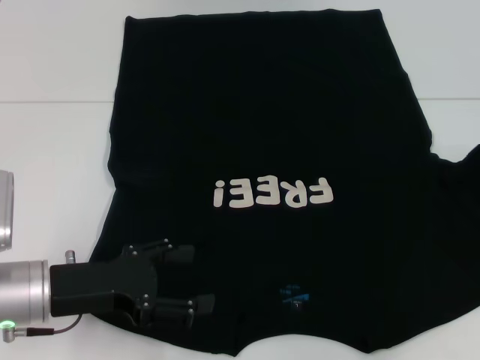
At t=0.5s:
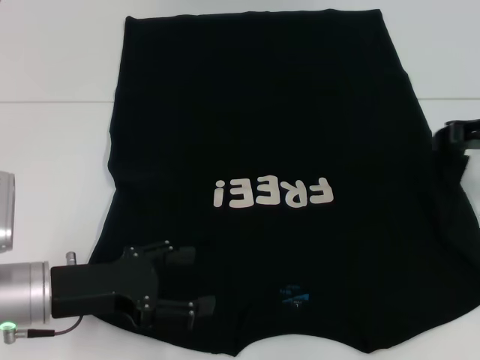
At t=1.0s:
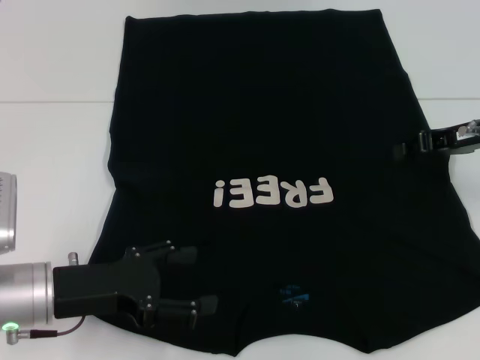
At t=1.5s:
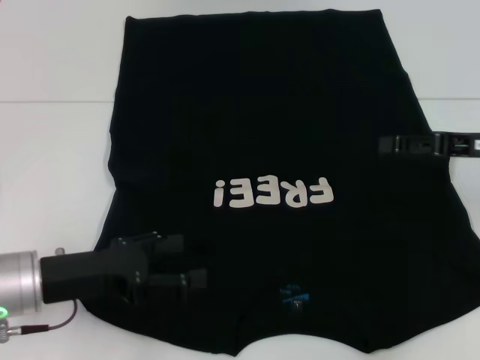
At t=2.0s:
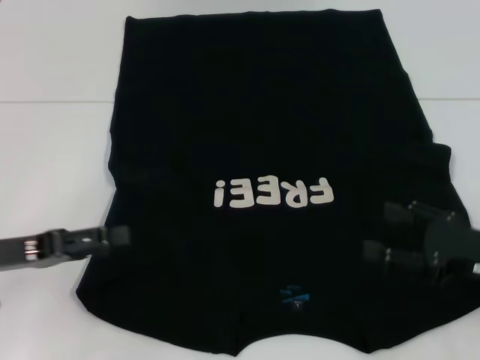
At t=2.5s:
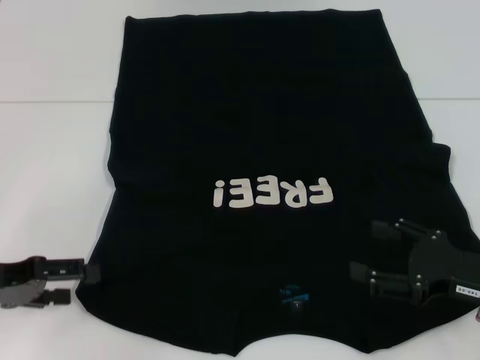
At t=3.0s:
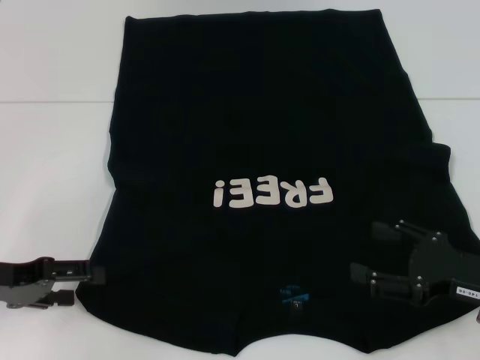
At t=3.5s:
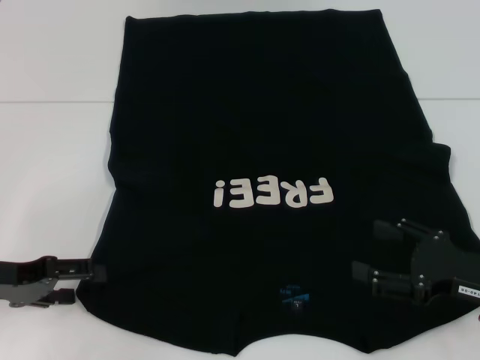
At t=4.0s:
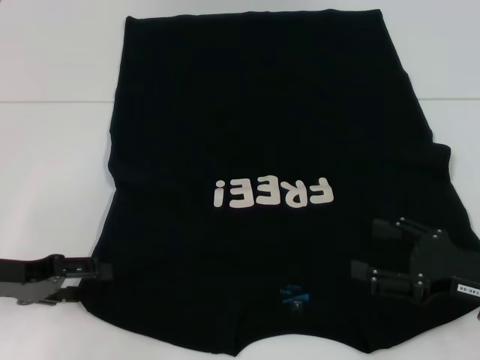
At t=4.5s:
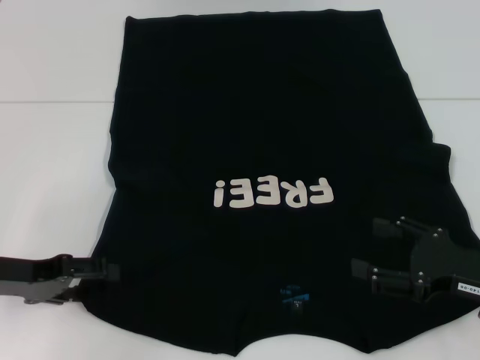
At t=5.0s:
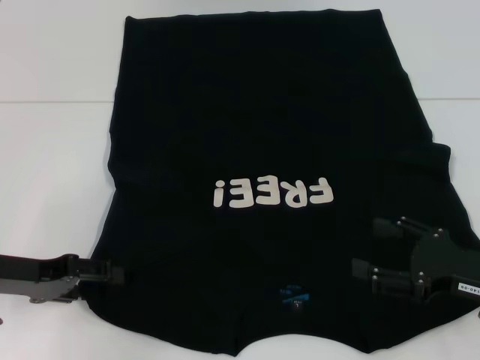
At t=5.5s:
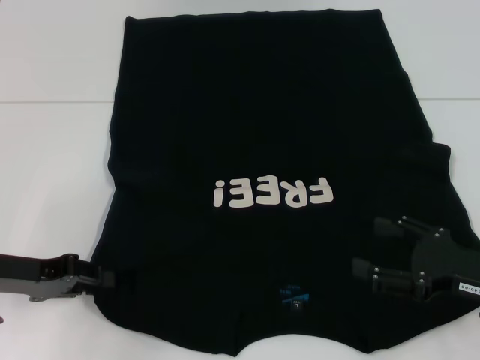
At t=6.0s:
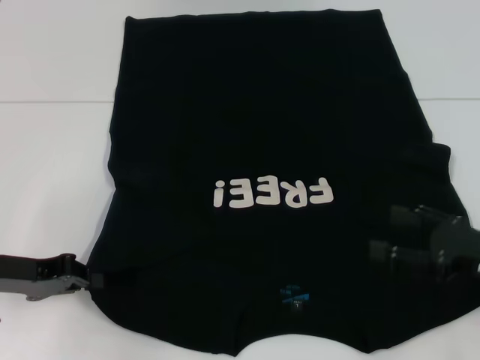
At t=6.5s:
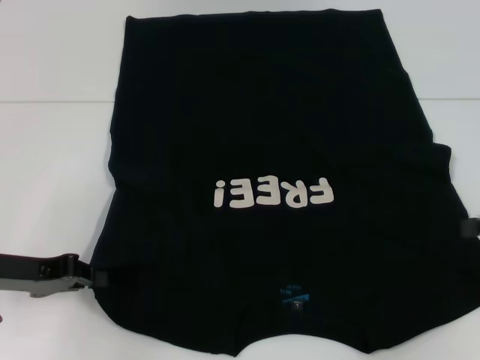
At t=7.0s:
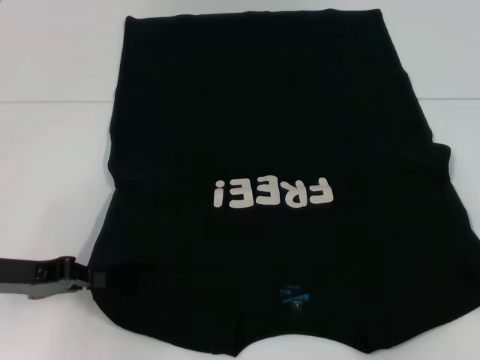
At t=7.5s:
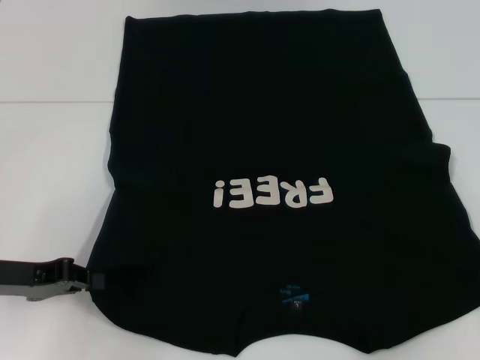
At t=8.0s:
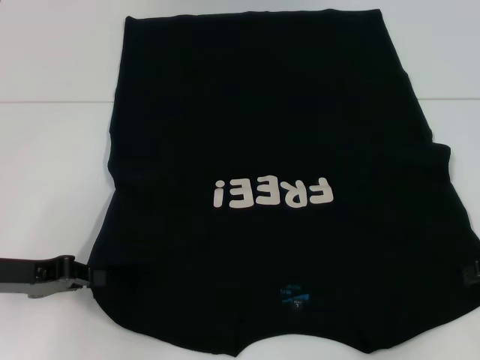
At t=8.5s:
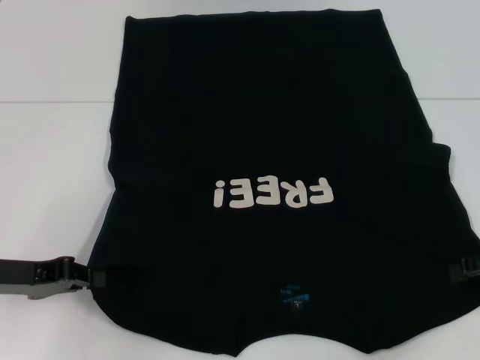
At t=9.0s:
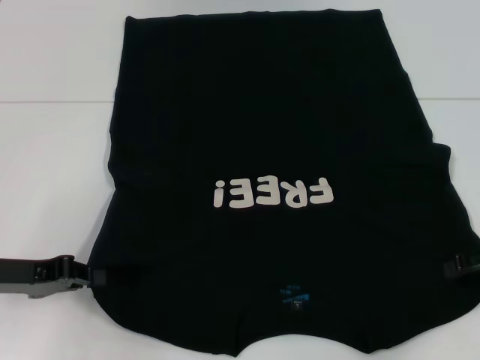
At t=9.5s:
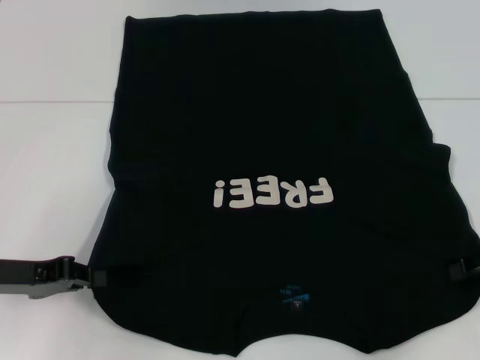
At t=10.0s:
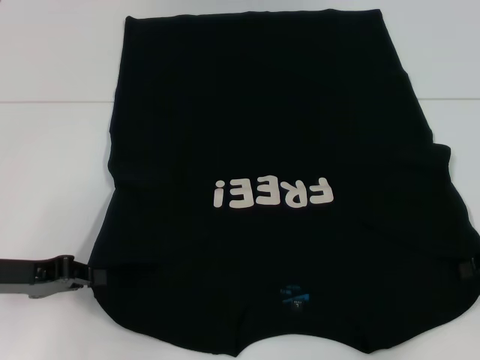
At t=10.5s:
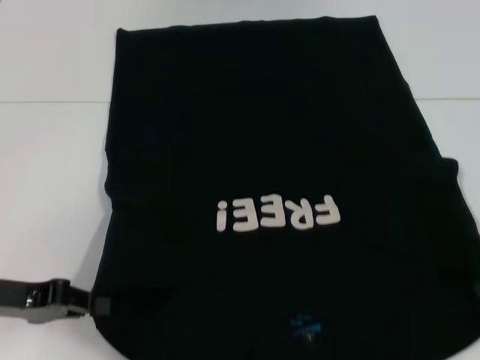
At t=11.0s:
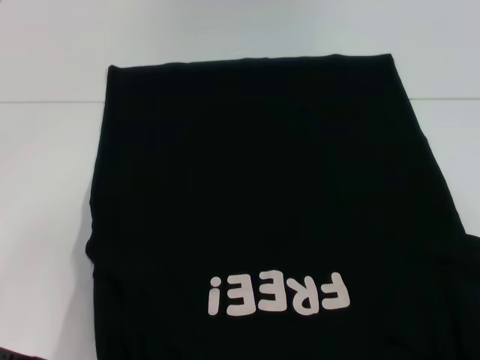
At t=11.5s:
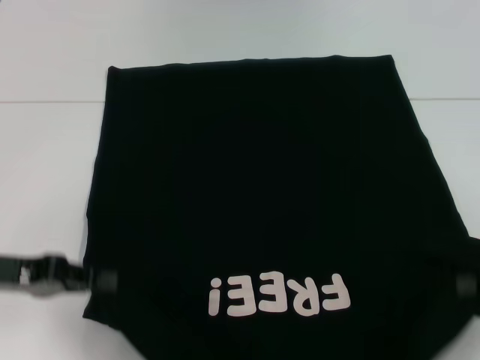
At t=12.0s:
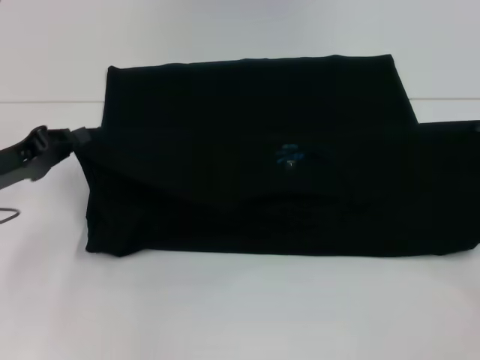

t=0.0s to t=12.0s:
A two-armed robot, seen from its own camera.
Step, t=1.5s to t=5.5s: Grab the bottom left corner with your left hand.
Step, t=6.0s to t=9.5s: Grab the bottom right corner with your right hand.
t=0.0s to t=2.0s: The right gripper shifts roughly 15 cm backward, downward and to the left, and opens up. Meanwhile the left gripper moves to the left, roughly 10 cm.
t=4.0s to t=6.0s: The left gripper closes.

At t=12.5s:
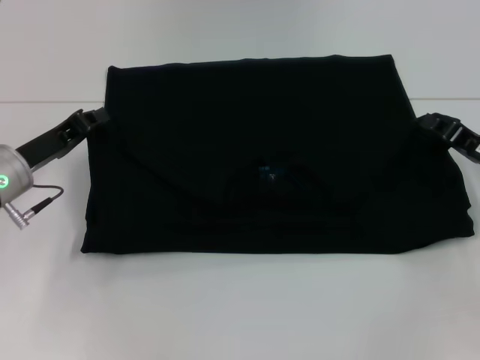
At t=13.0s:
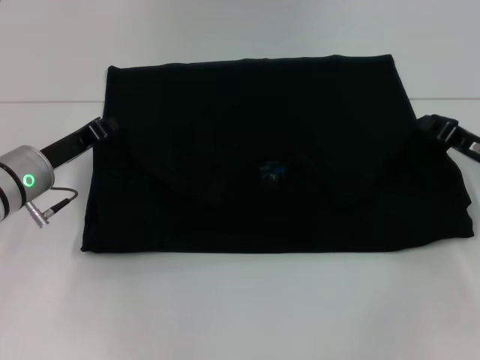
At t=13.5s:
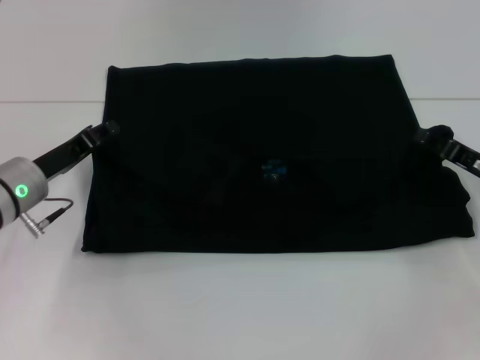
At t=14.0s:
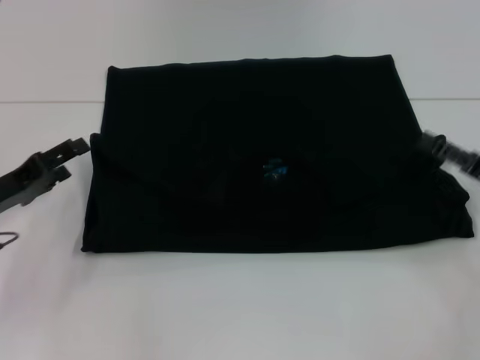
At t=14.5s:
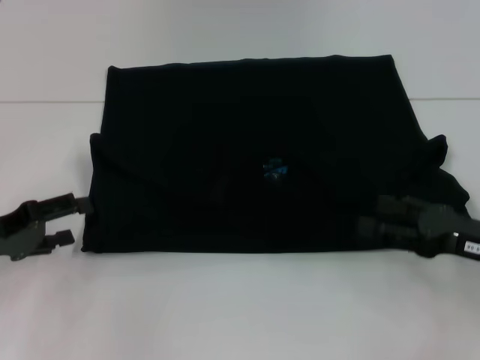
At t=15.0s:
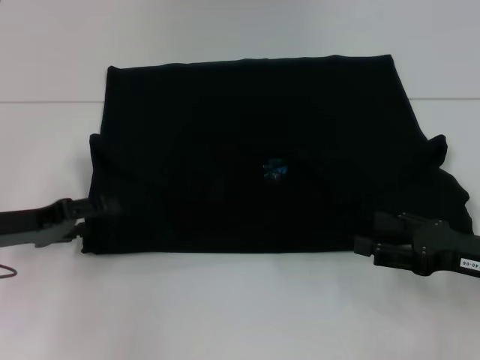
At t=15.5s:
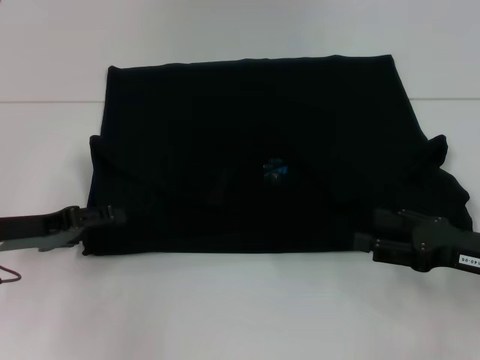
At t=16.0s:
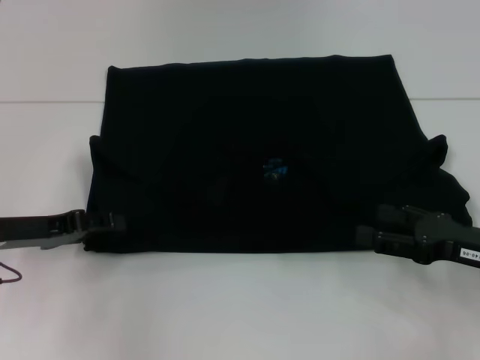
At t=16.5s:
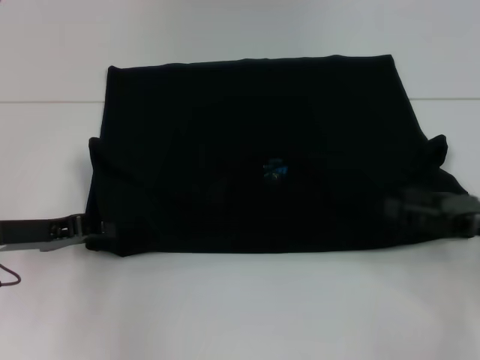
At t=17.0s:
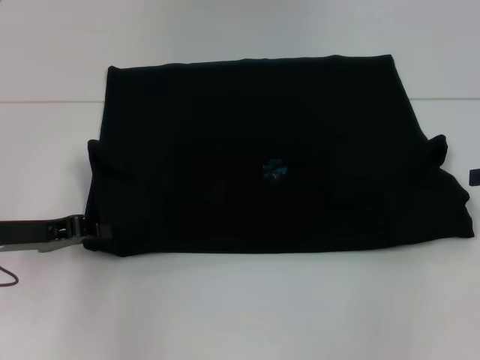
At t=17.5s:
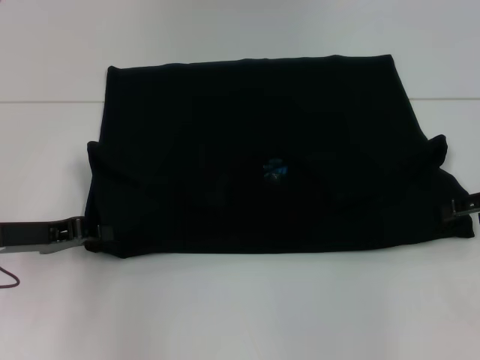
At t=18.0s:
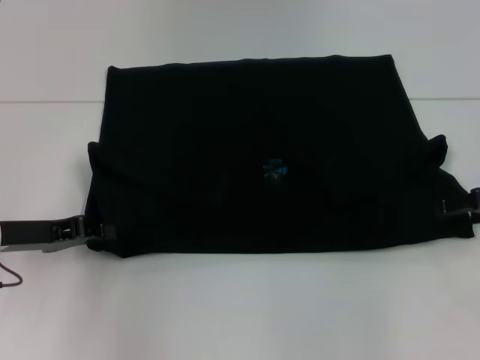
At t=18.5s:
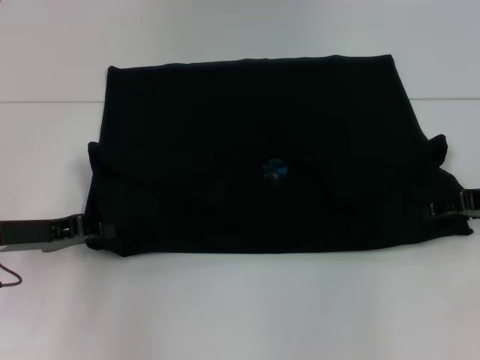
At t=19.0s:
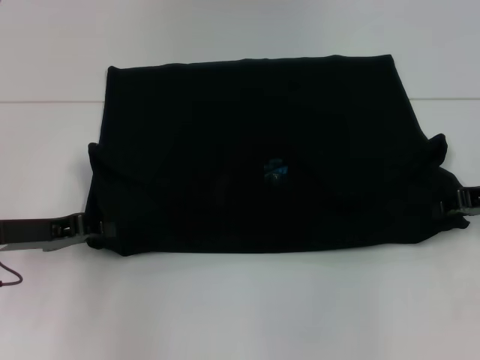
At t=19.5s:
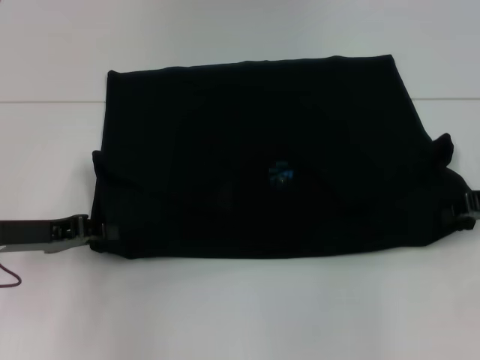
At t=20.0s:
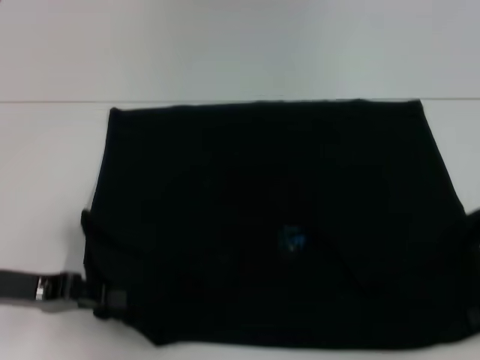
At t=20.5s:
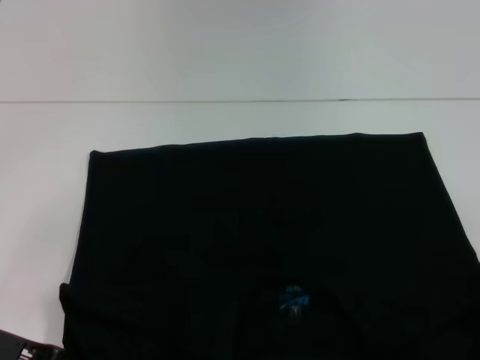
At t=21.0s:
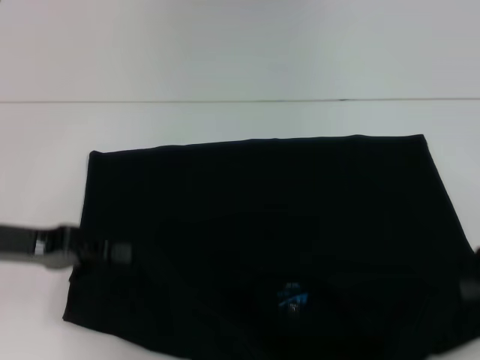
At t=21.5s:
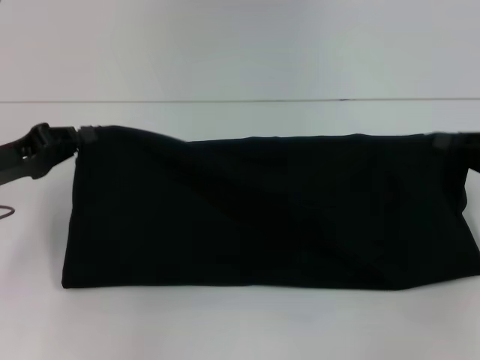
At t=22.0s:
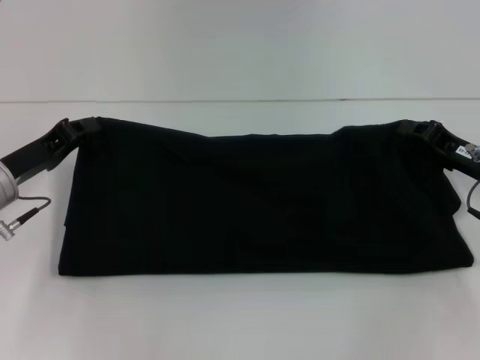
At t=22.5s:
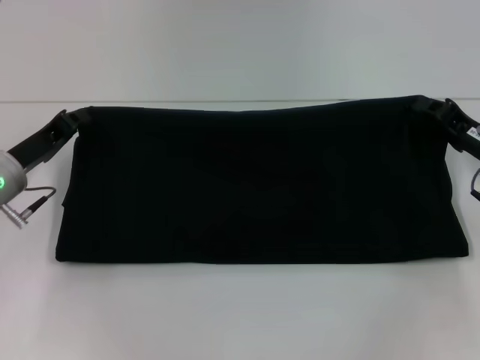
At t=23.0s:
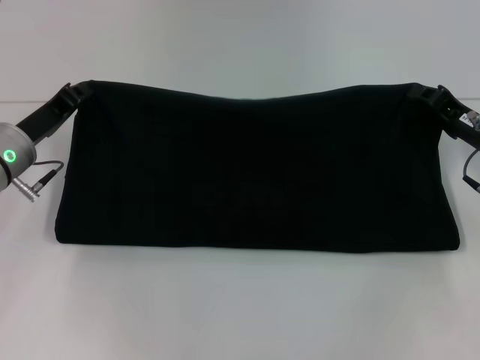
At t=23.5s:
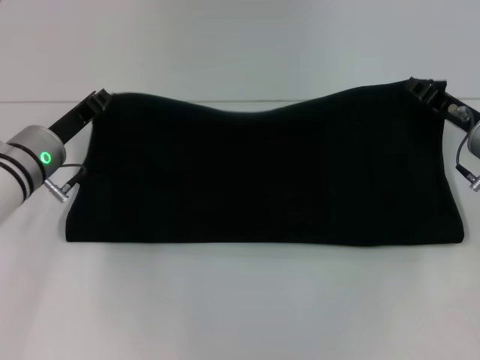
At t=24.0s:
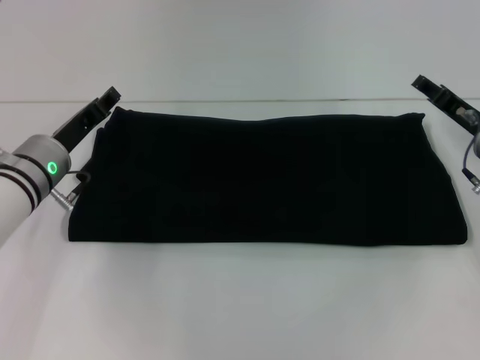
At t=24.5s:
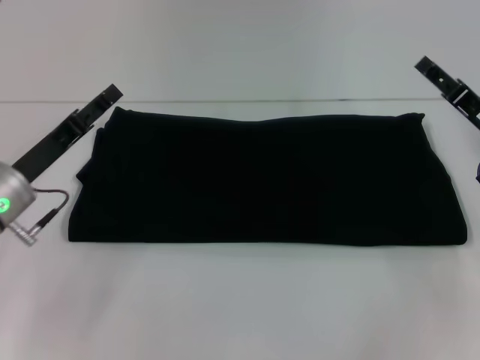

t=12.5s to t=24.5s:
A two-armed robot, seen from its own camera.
Step, t=14.0s to t=20.5s: Pull the clothes with your left hand.
Step, t=14.0s to t=20.5s: Pull the clothes with your right hand.
Step, t=21.0s to t=24.0s: Fold the clothes with your right hand.
t=12.5s to t=14.5s: The right gripper goes approximately 5 cm backward, and opens its fingers. Meanwhile the left gripper travels backward and to the left by approximately 10 cm, and opens up.
t=14.5s to t=16.5s: The left gripper closes its fingers.
t=16.5s to t=18.5s: The right gripper is displaced forward by roughly 5 cm.
t=18.5s to t=20.5s: The left gripper heads backward, covering some 5 cm; the right gripper travels backward by approximately 10 cm, and closes its fingers.
t=20.5s to t=22.5s: The left gripper heads forward, covering about 10 cm. Meanwhile the right gripper travels forward and to the left by roughly 15 cm.
t=22.5s to t=24.5s: The right gripper opens up, while the left gripper opens.

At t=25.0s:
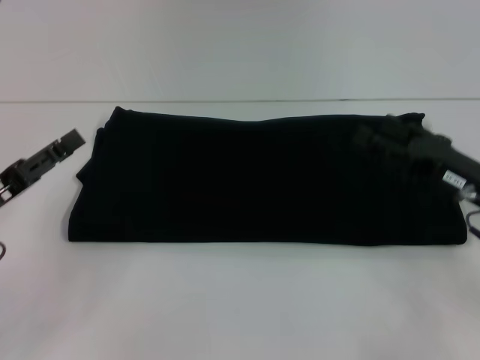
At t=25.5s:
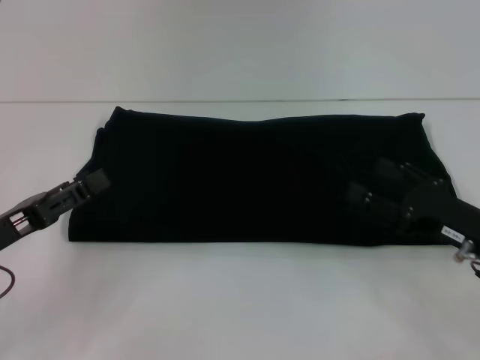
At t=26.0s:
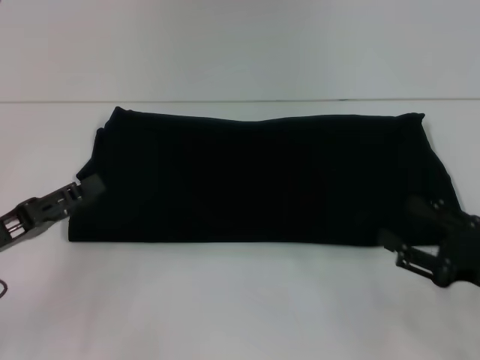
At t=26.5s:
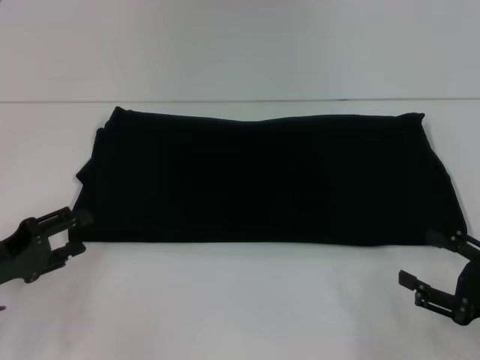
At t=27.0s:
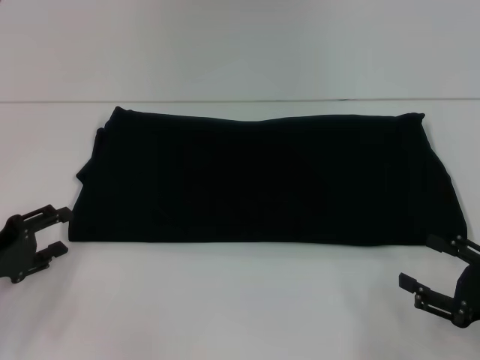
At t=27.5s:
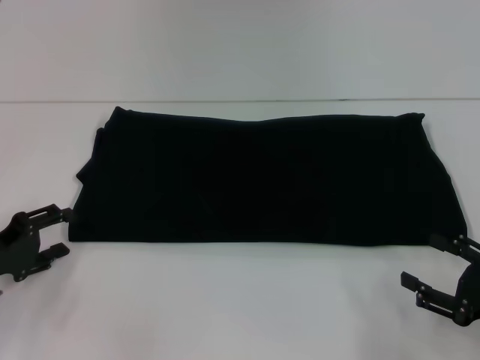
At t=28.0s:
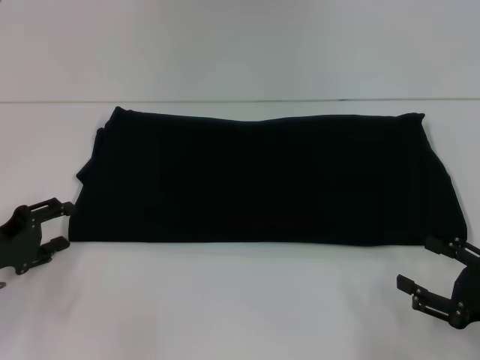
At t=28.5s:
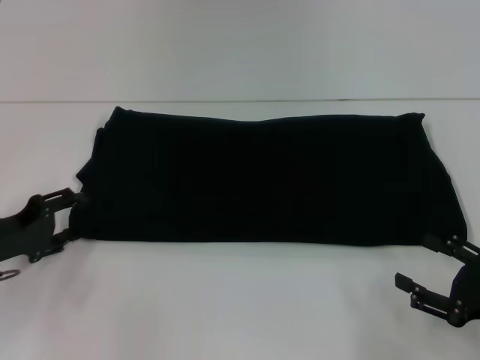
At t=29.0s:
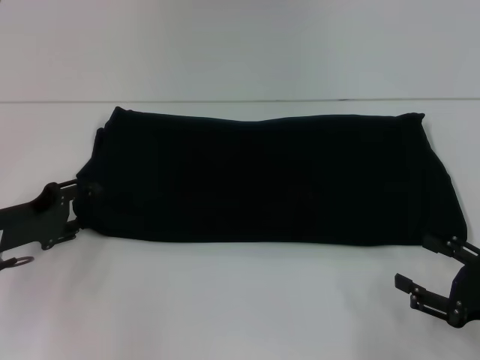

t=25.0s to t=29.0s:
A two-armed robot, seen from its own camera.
t=25.0s to t=27.0s: The right gripper heads backward and to the right, covering some 10 cm.
t=27.0s to t=29.0s: The left gripper is displaced forward by about 5 cm.
